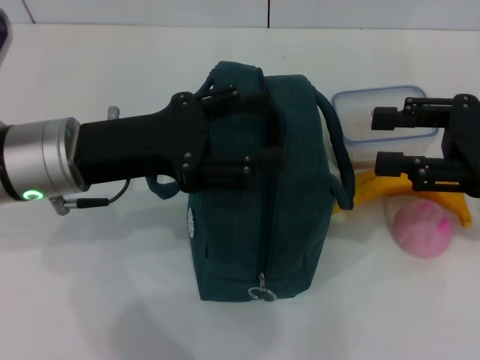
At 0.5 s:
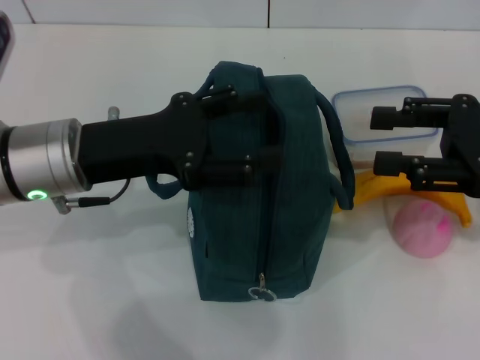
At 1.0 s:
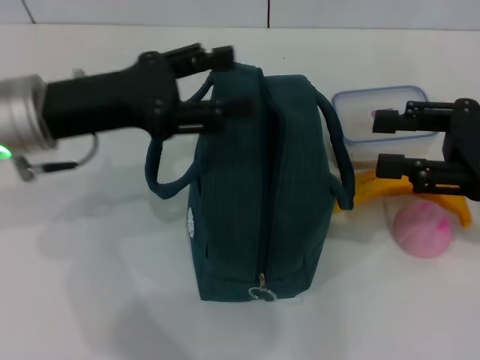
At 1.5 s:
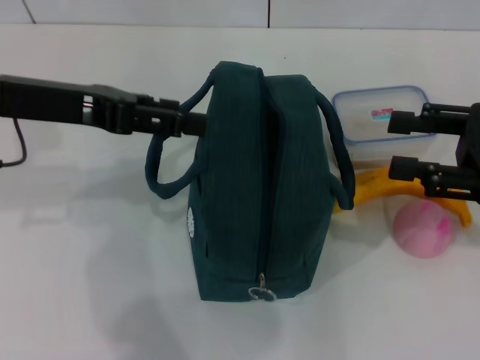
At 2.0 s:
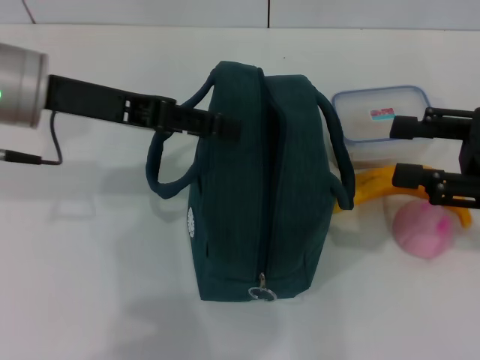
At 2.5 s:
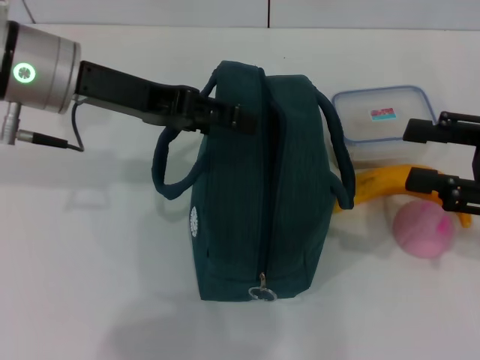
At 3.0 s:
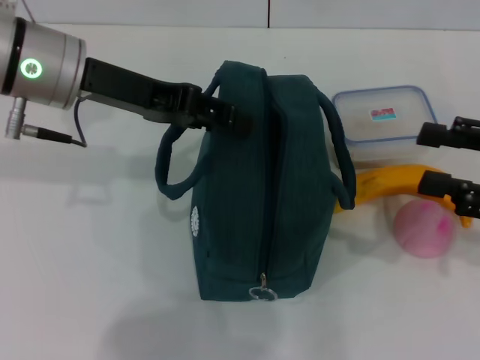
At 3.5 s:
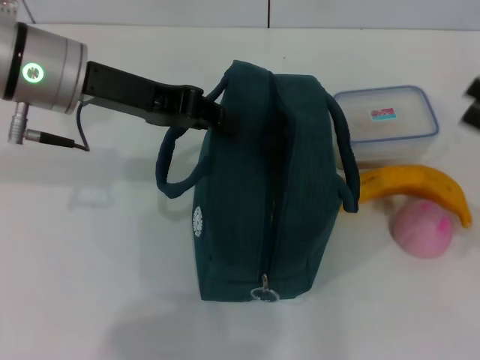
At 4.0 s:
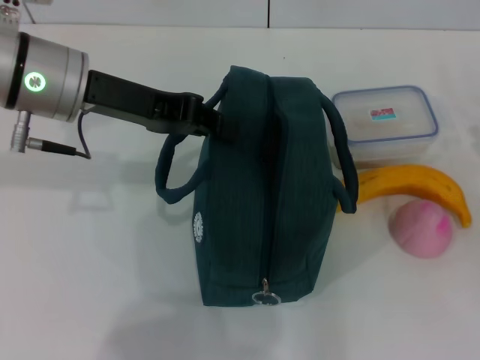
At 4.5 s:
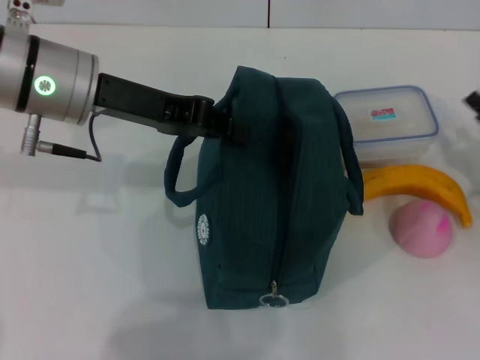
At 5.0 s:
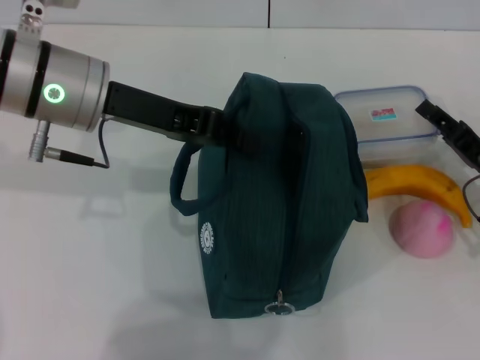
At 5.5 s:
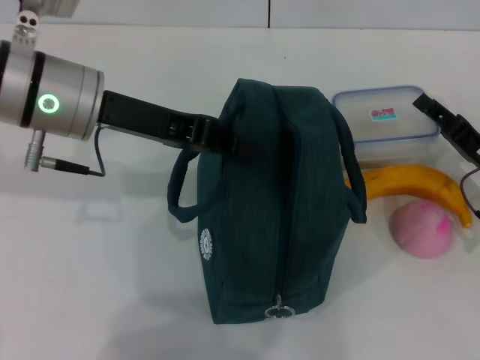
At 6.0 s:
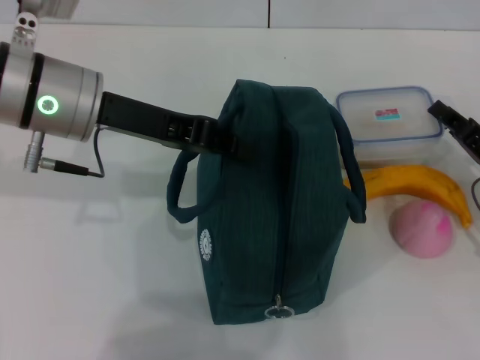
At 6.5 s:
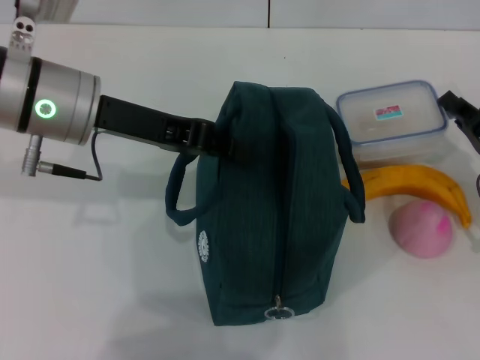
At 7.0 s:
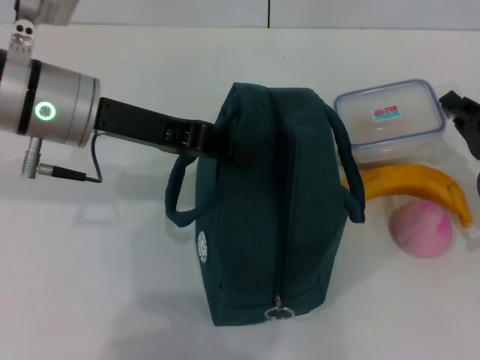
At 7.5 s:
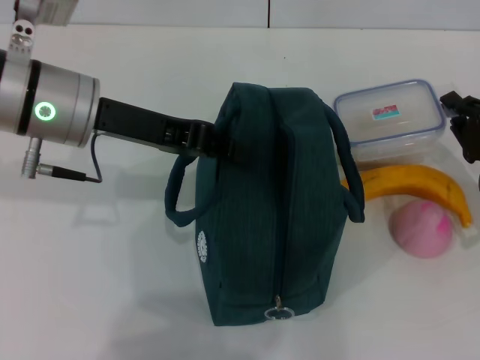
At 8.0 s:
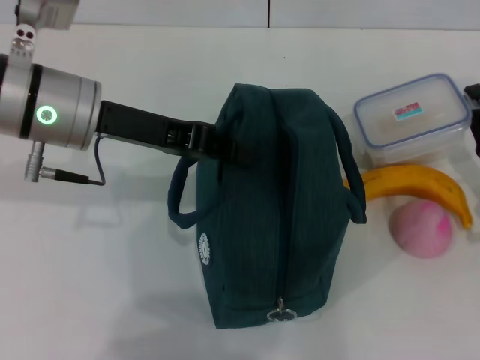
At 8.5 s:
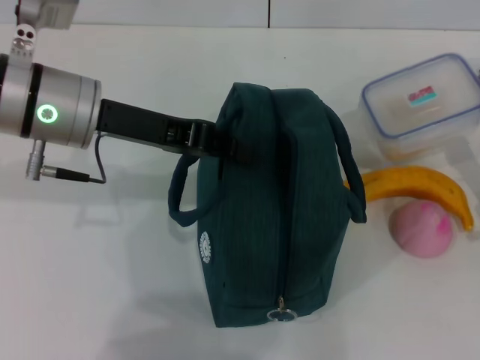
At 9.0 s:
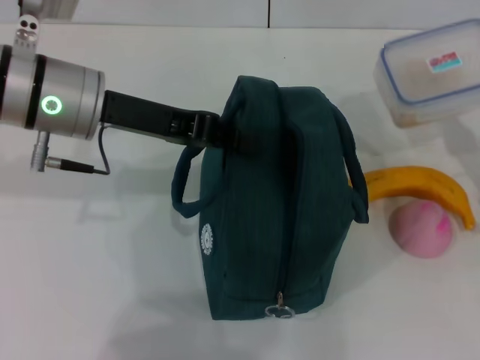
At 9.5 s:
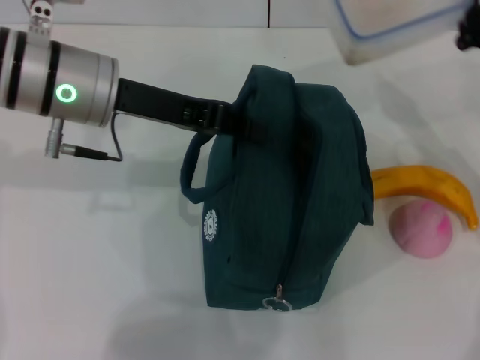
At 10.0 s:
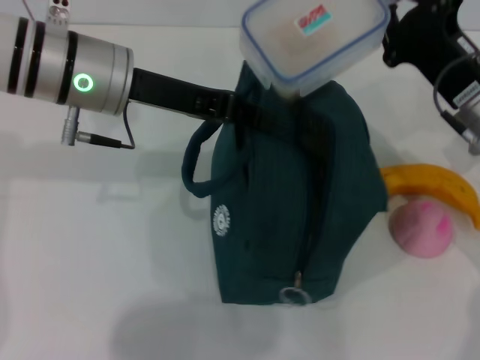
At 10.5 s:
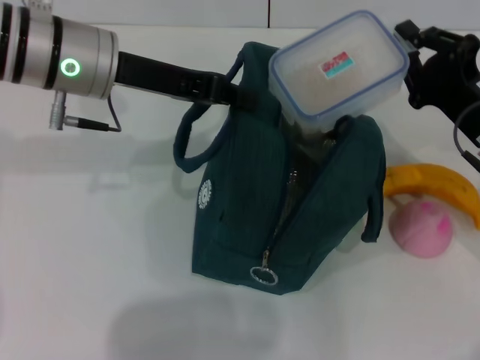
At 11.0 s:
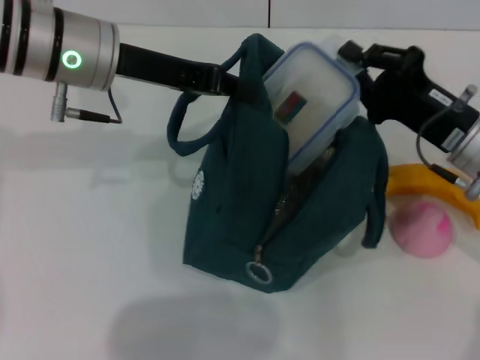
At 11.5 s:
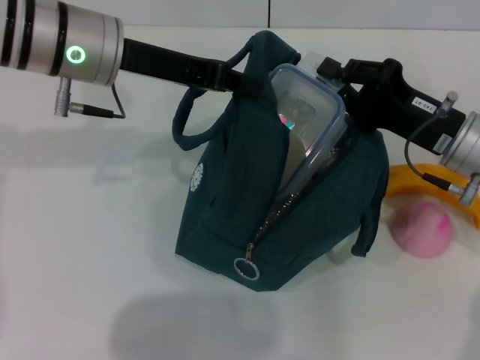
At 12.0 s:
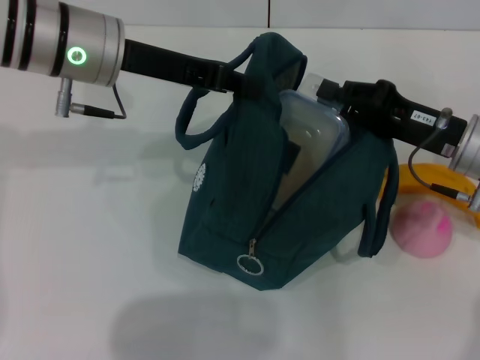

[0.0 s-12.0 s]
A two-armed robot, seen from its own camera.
Step, 0.0 to 4.0 s: Hold the lunch bag with your left hand.
Step, 4.5 to 7.0 s: Pick up the lunch box with your right hand.
0.0 to 2.0 s: The left gripper goes approximately 5 cm upward.
2.0 to 4.0 s: The right gripper shifts approximately 15 cm downward and to the right. Meanwhile the left gripper closes.
4.0 to 6.0 s: The right gripper is displaced to the left by about 10 cm.
8.0 to 10.0 s: The right gripper goes approximately 10 cm to the left and upward.

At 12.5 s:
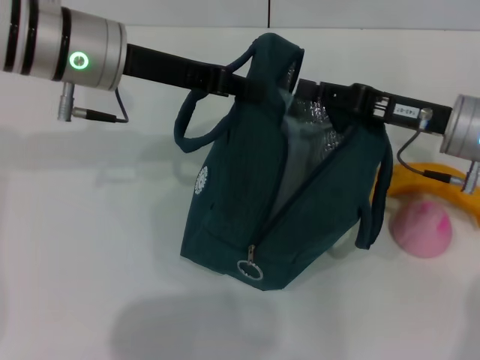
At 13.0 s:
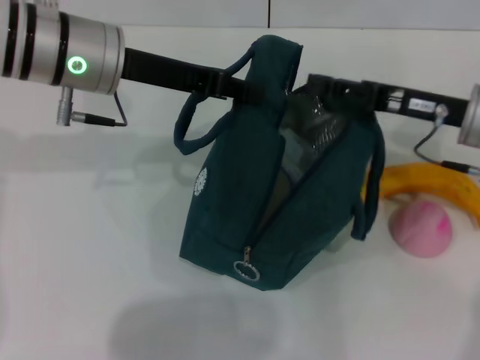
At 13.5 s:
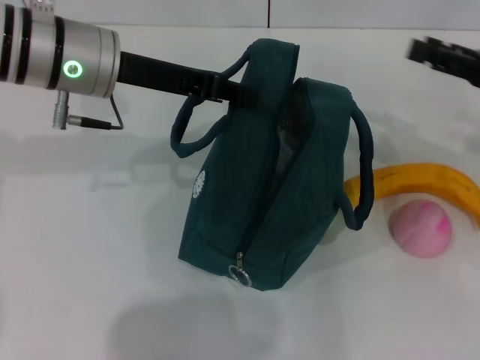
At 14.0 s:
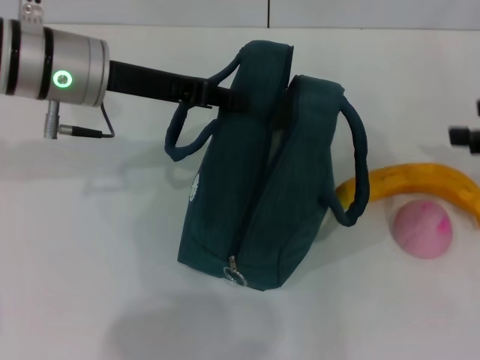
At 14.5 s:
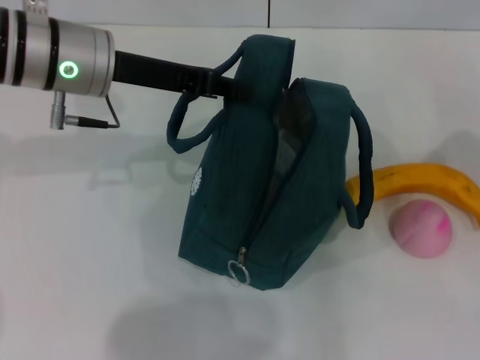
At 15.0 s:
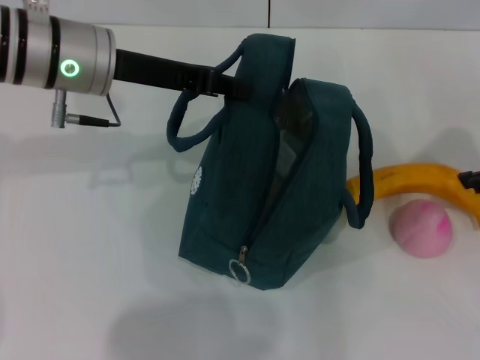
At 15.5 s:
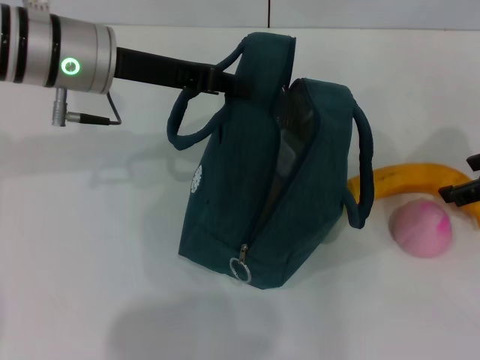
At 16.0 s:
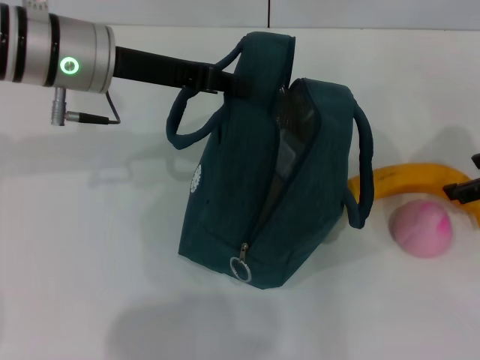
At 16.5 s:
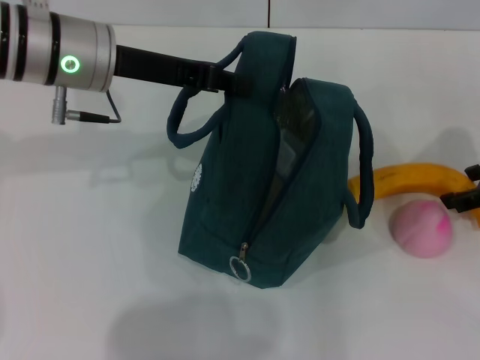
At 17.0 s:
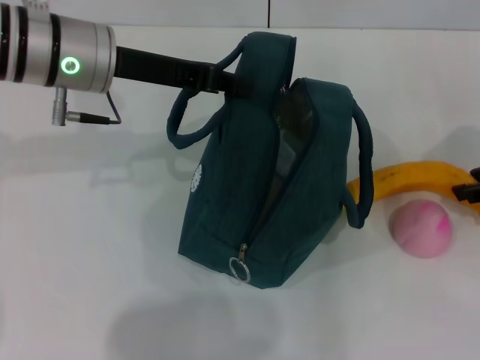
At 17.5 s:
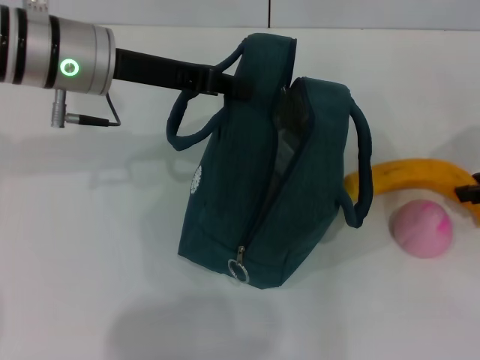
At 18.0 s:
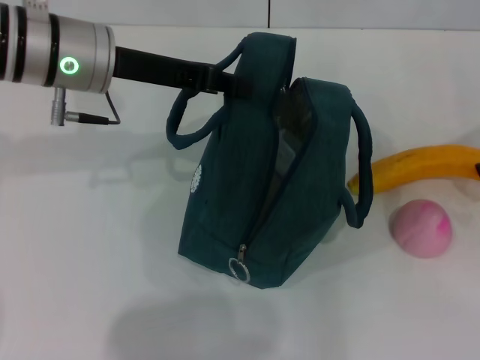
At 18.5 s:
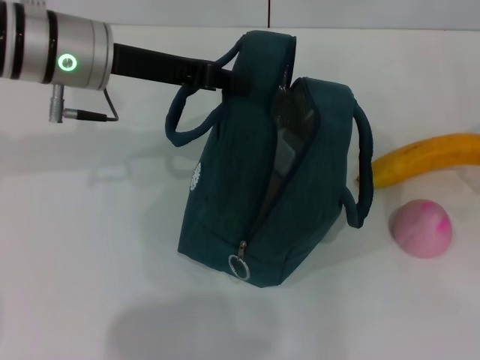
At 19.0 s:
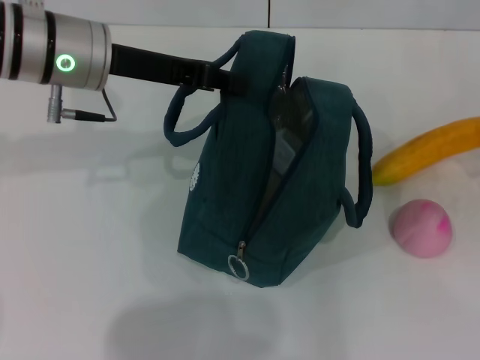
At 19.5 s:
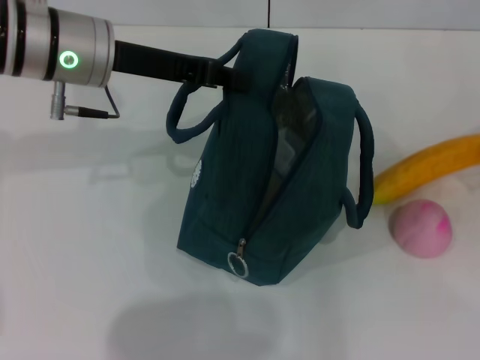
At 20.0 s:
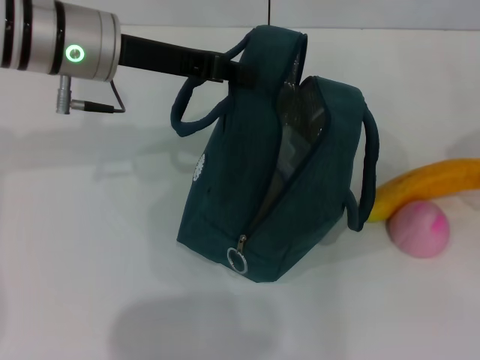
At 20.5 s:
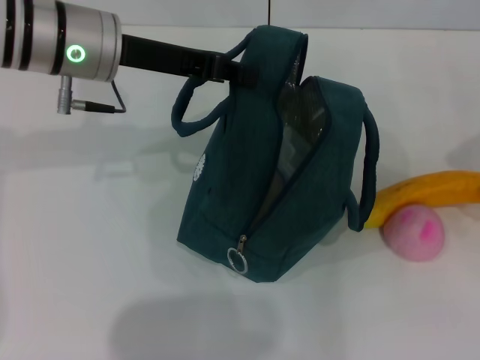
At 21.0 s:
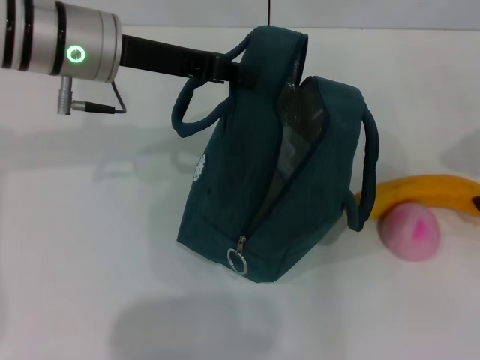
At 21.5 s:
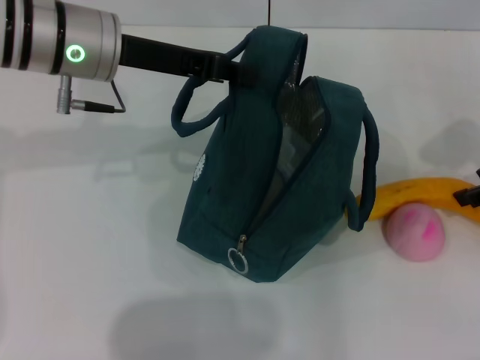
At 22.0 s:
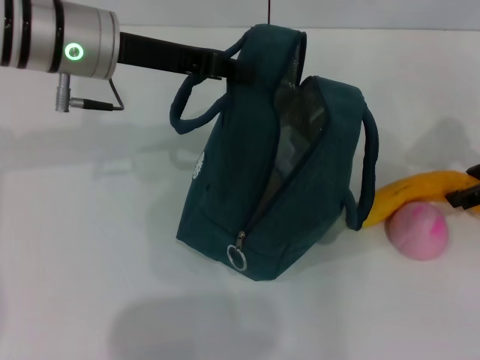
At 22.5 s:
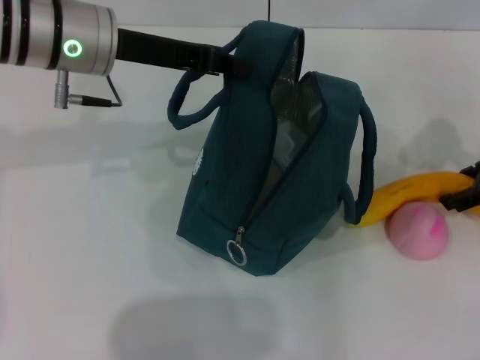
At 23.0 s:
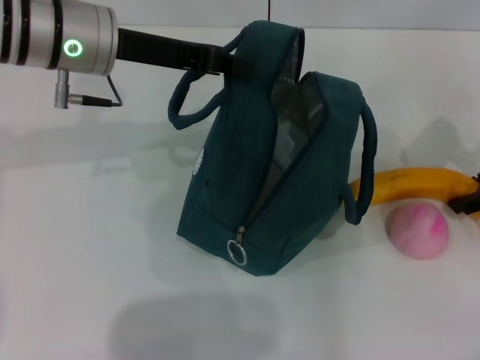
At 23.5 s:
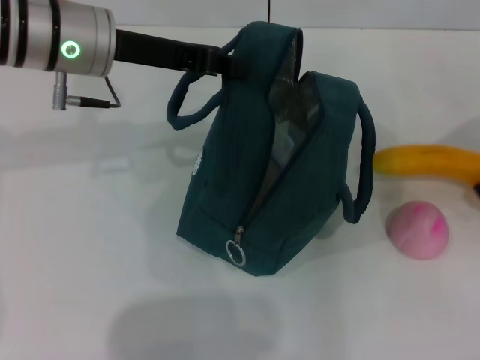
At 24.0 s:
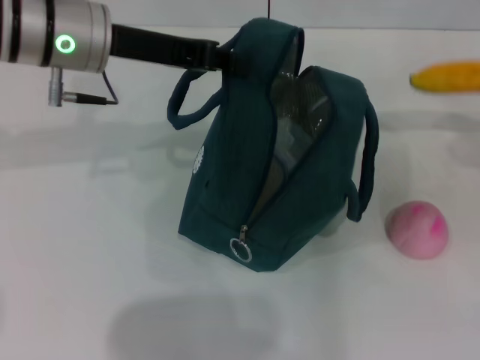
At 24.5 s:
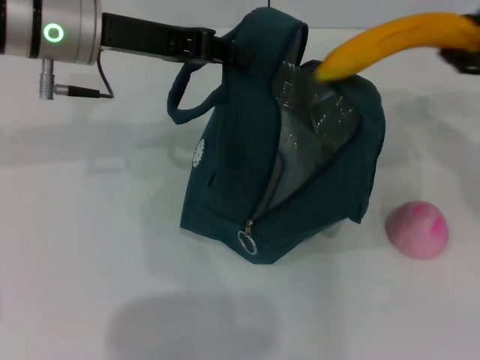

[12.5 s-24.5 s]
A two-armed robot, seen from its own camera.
Step, 13.0 to 23.0 s: Take the banana with your right hand.
12.5 to 14.5 s: The right gripper heads to the right and upward, covering approximately 15 cm, and opens.
14.5 to 16.5 s: The right gripper goes approximately 5 cm downward.
16.5 to 18.5 s: The right gripper closes up.
18.5 to 20.5 s: The grippers move only a little.
20.5 to 22.5 s: The right gripper shifts about 5 cm to the left.
22.5 to 24.5 s: The right gripper goes roughly 10 cm upward.

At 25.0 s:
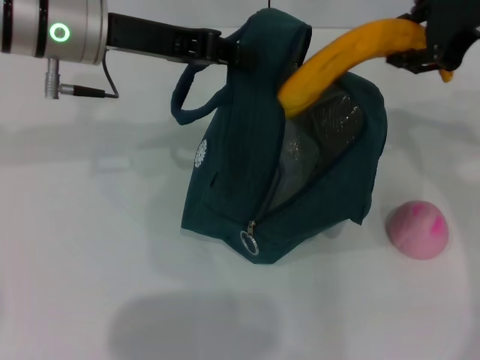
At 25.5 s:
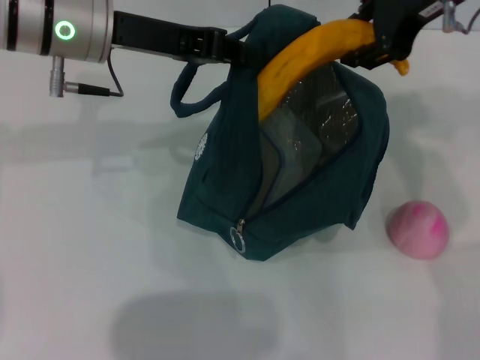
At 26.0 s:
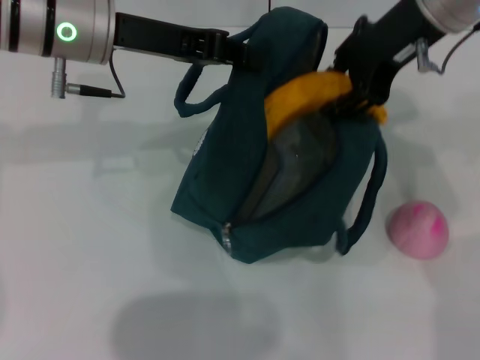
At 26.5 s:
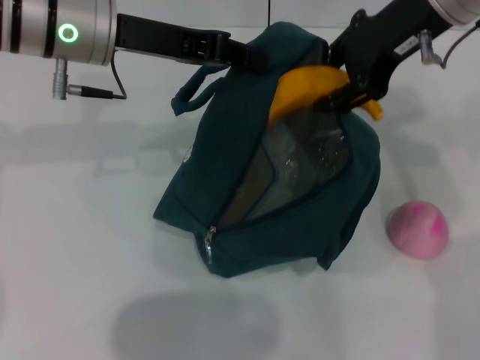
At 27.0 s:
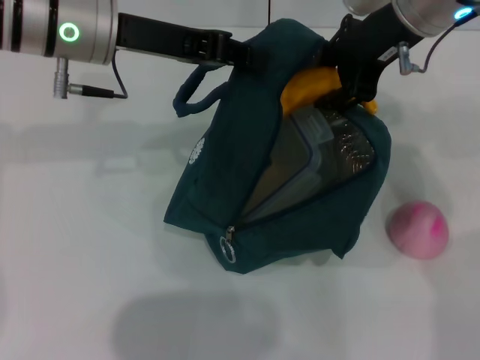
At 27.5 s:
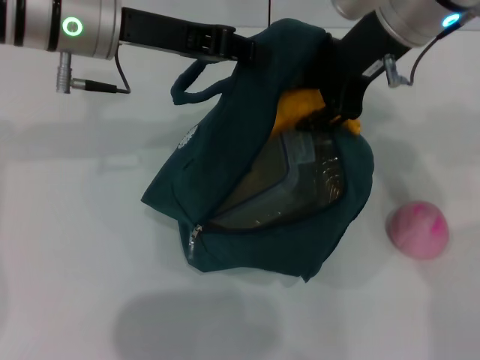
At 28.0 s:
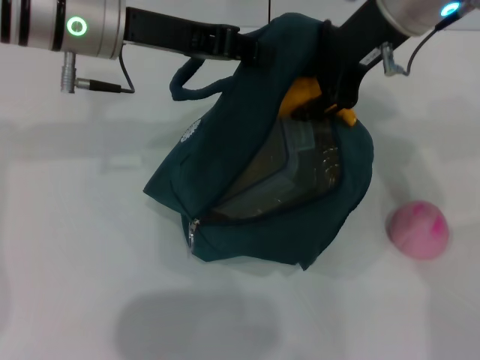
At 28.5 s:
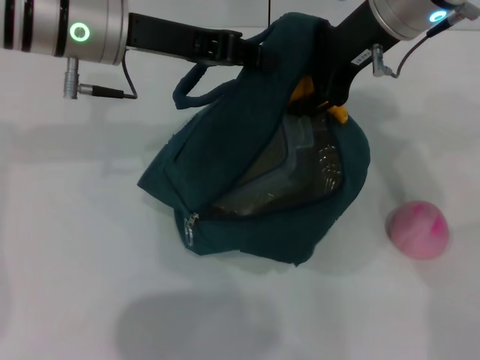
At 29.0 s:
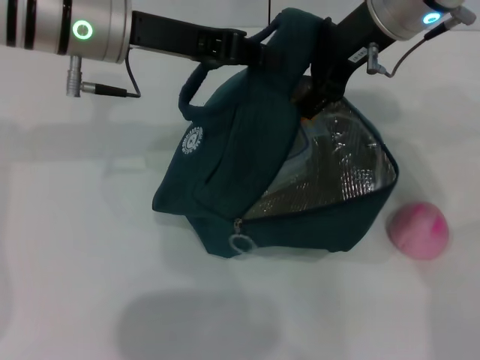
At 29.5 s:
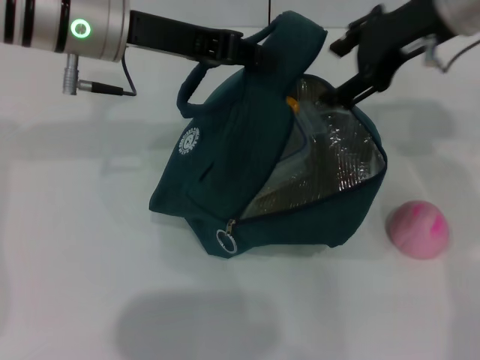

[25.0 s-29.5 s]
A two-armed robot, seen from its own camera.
Step, 25.0 to 29.0 s: Put the banana into the lunch bag with your right hand.
25.0 to 27.0 s: The right gripper goes approximately 10 cm to the left.
27.0 to 29.5 s: The right gripper opens up.
